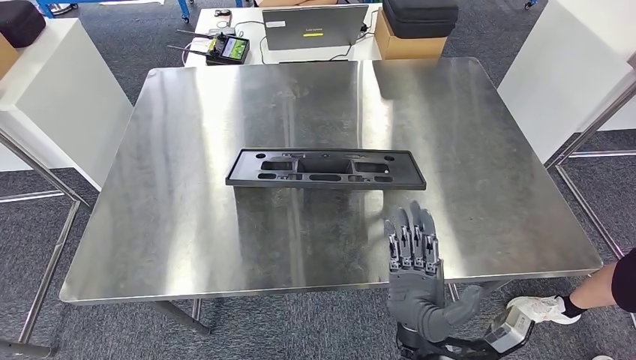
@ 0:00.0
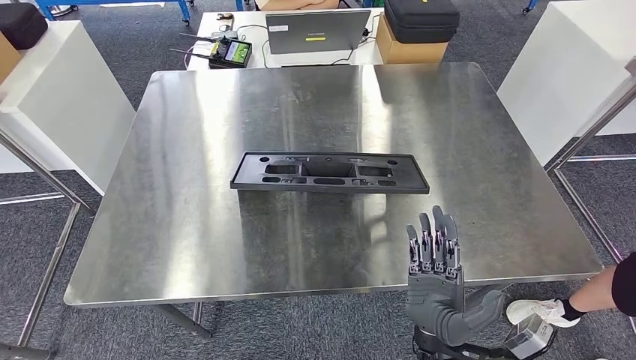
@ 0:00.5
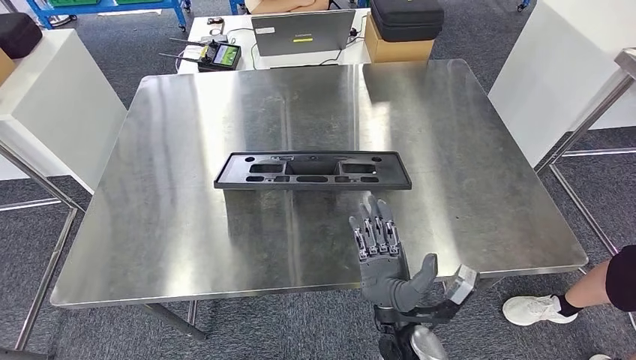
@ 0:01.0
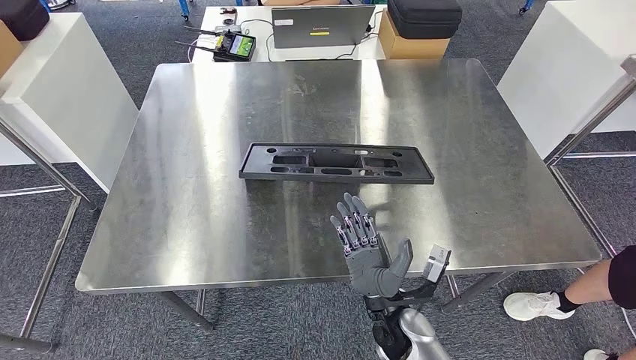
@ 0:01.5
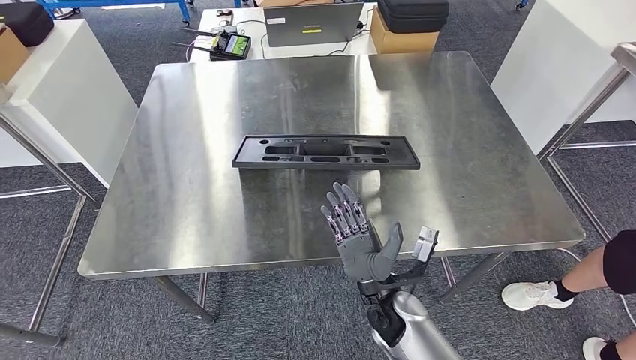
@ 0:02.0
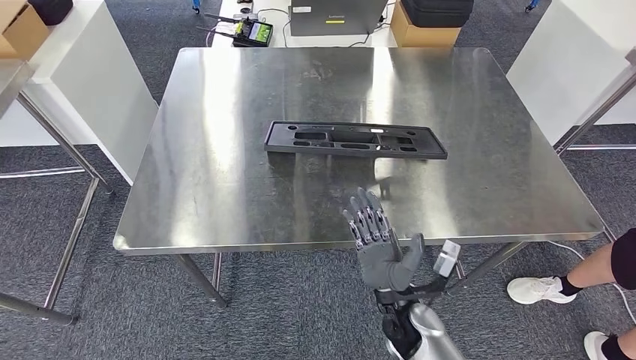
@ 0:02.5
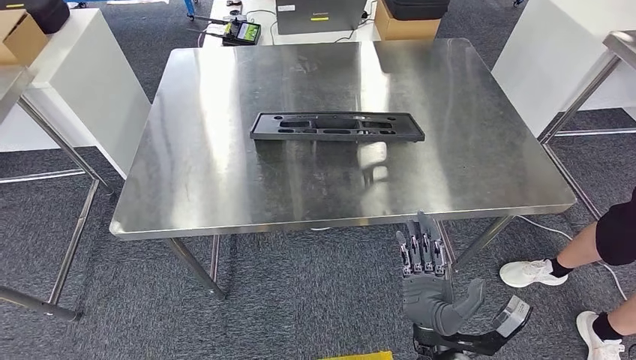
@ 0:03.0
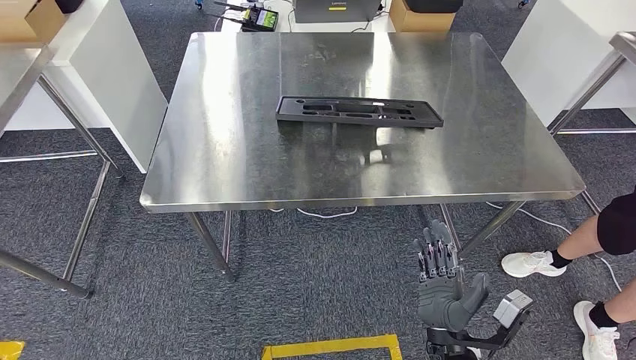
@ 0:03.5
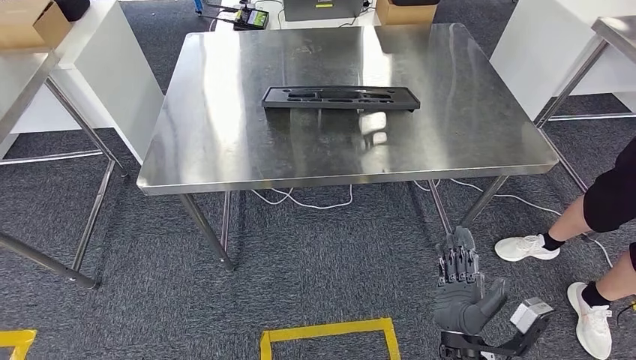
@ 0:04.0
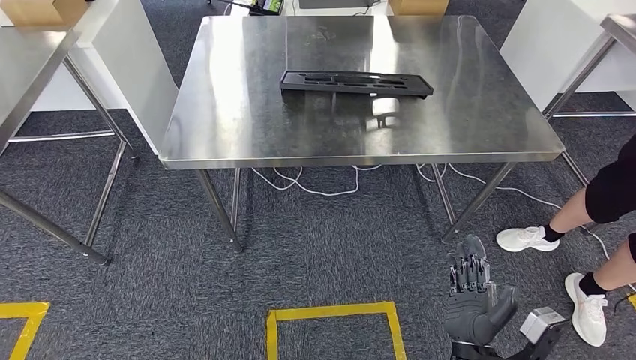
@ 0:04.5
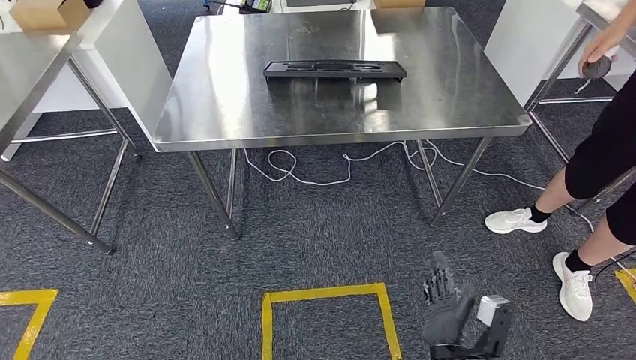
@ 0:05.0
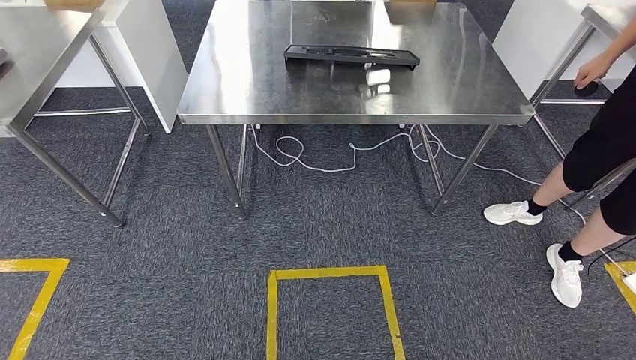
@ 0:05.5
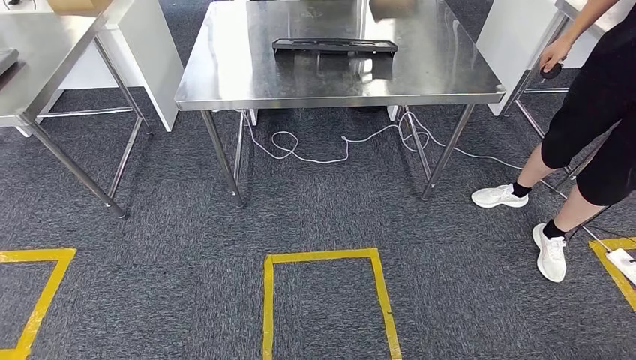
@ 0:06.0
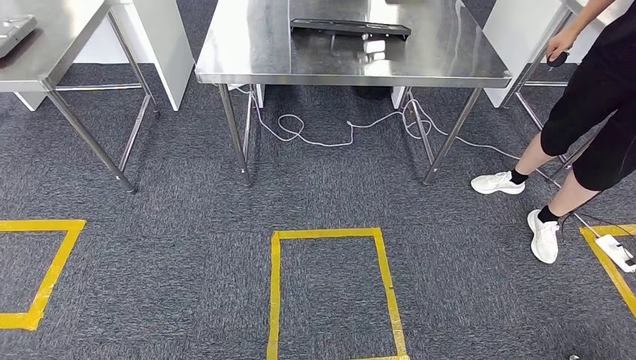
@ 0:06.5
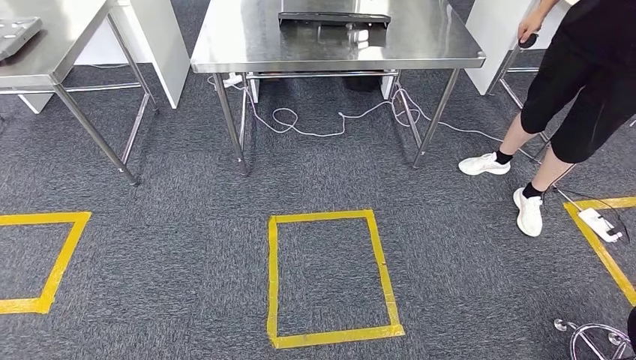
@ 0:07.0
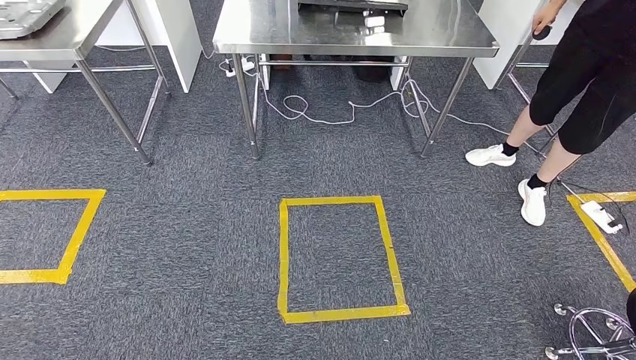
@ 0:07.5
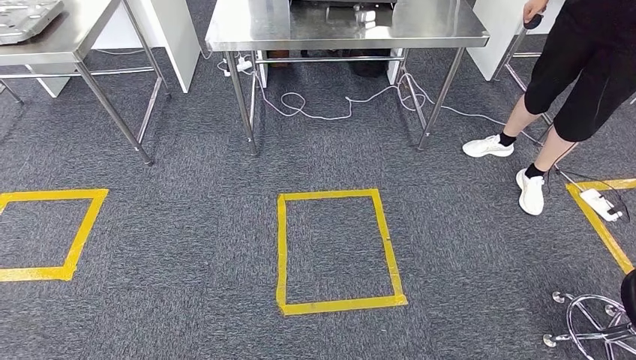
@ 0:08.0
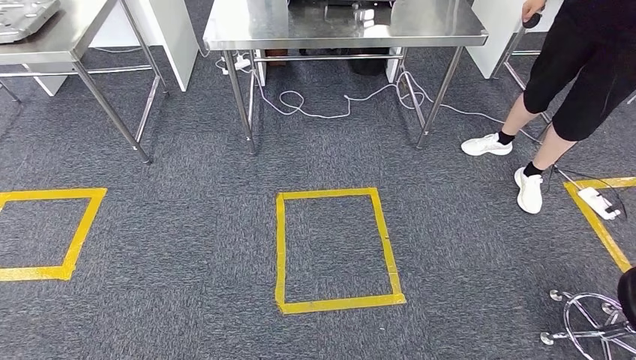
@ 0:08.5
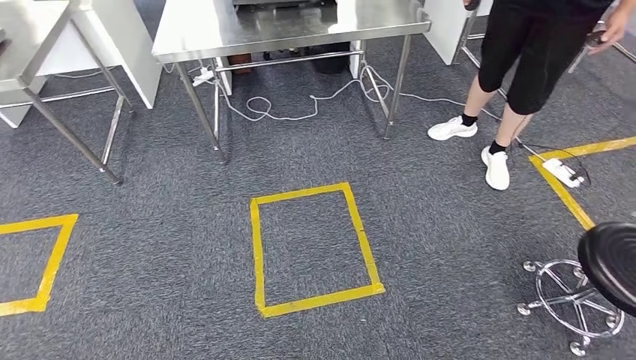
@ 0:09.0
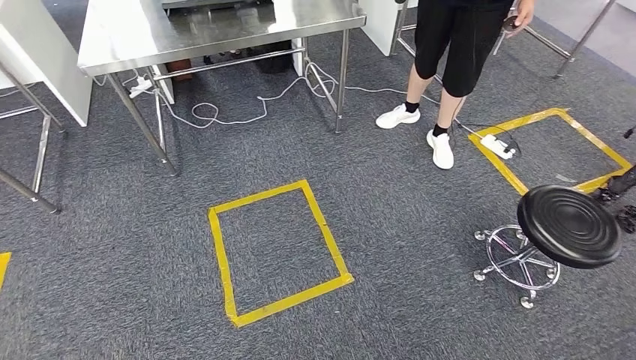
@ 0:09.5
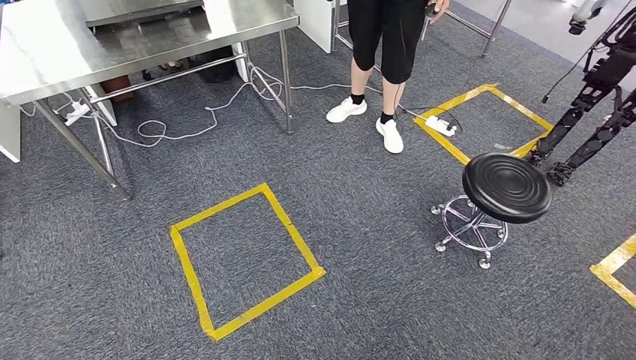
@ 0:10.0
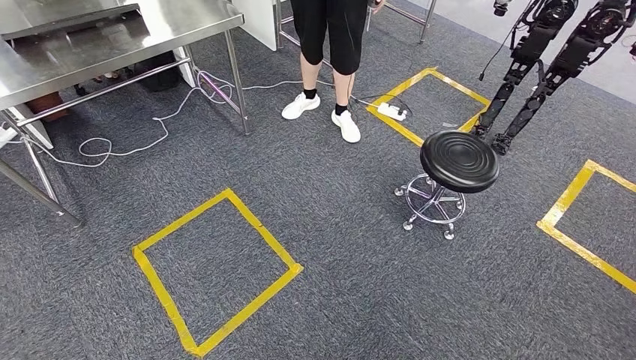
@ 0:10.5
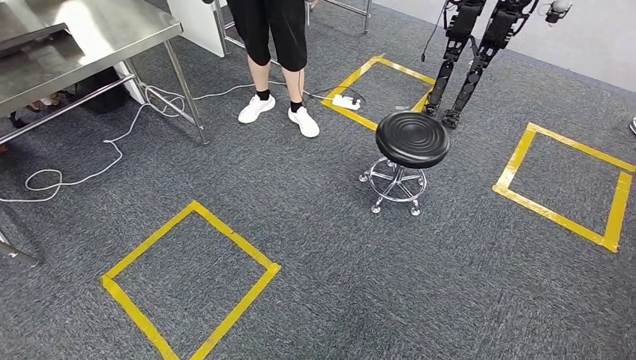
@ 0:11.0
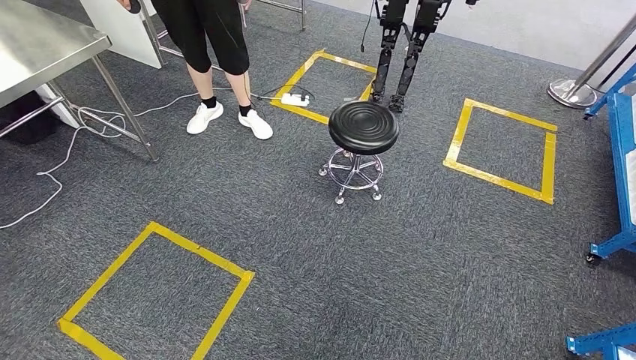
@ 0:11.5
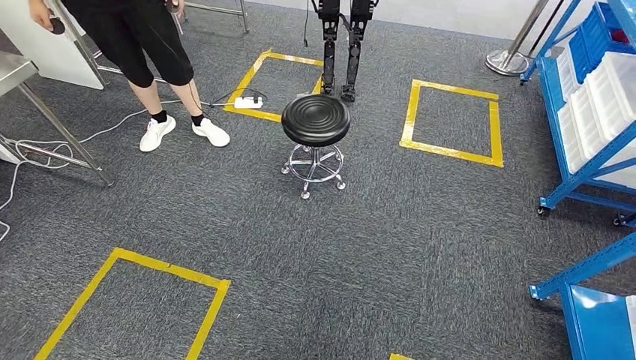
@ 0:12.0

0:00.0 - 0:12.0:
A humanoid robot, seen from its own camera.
Step, 0:00.0 - 0:06.0: Insert the large material into the corresponding hole on the workbench.

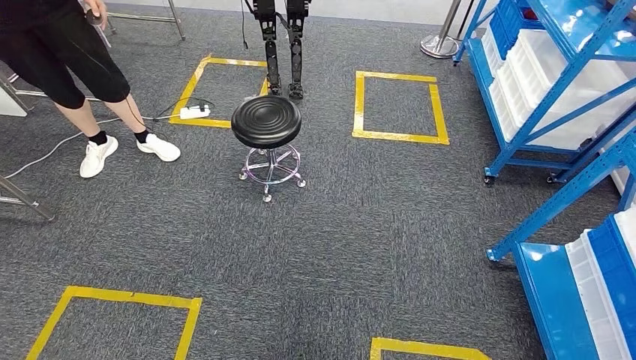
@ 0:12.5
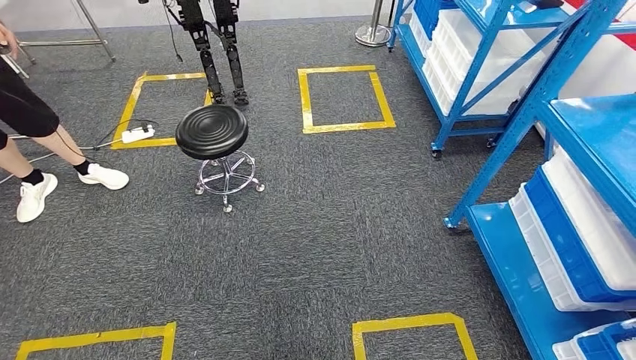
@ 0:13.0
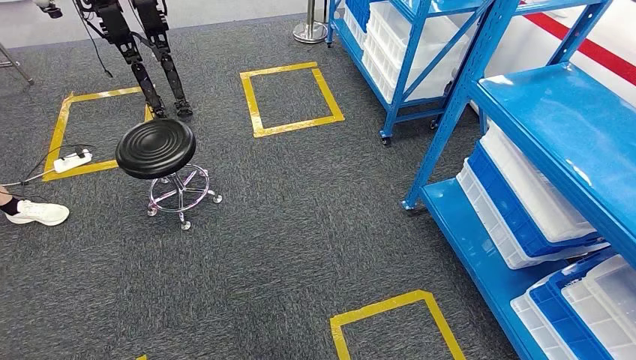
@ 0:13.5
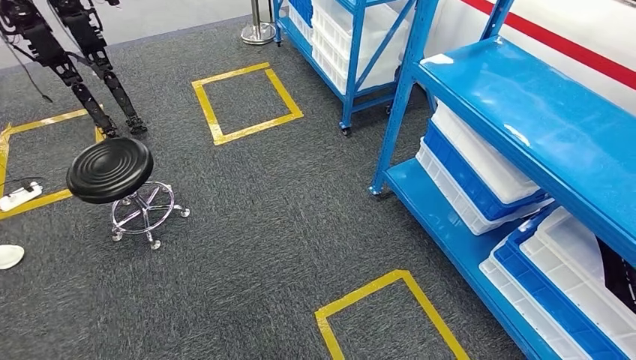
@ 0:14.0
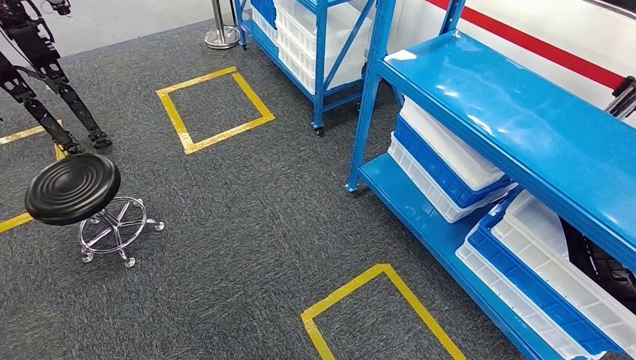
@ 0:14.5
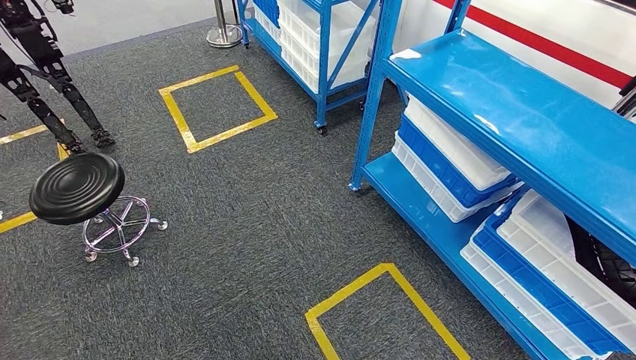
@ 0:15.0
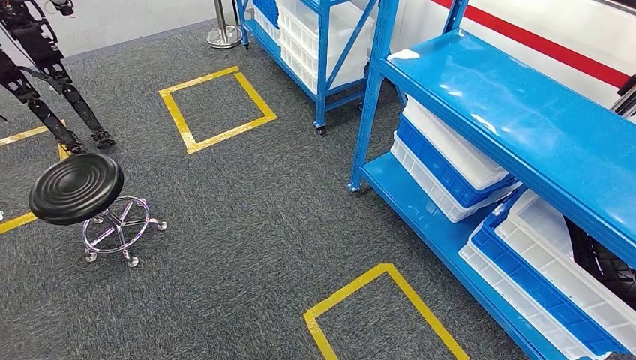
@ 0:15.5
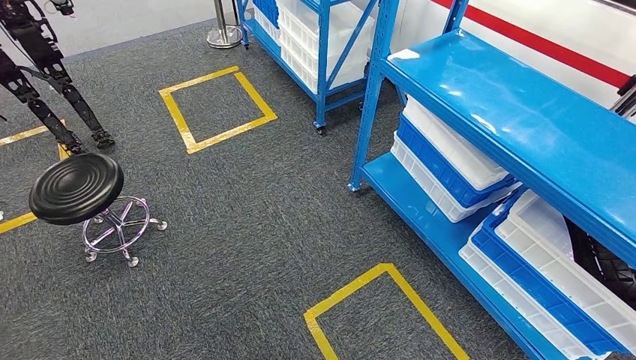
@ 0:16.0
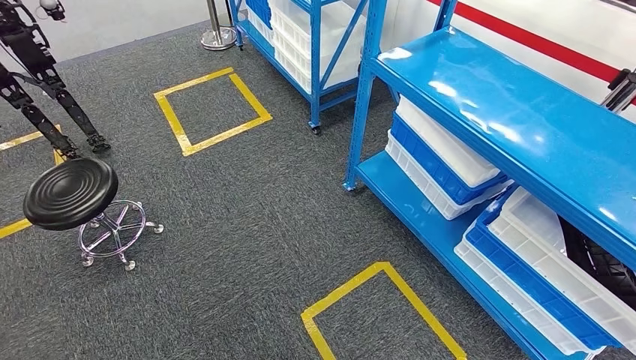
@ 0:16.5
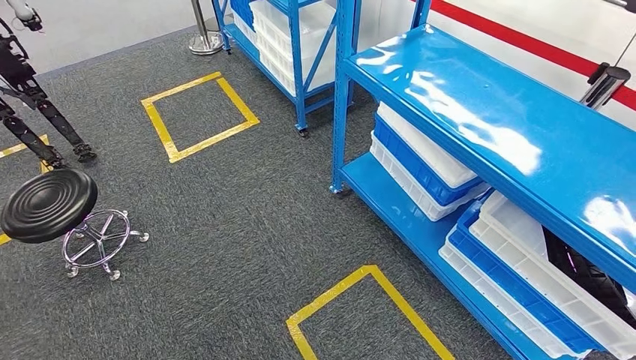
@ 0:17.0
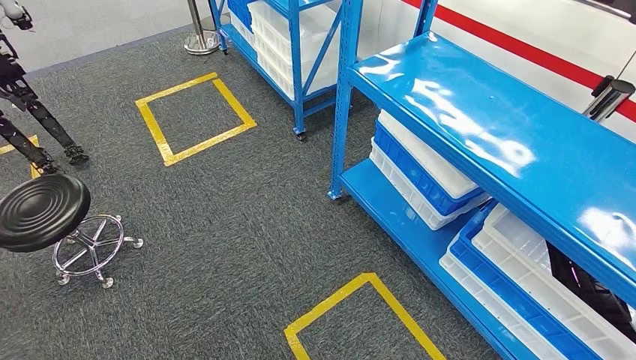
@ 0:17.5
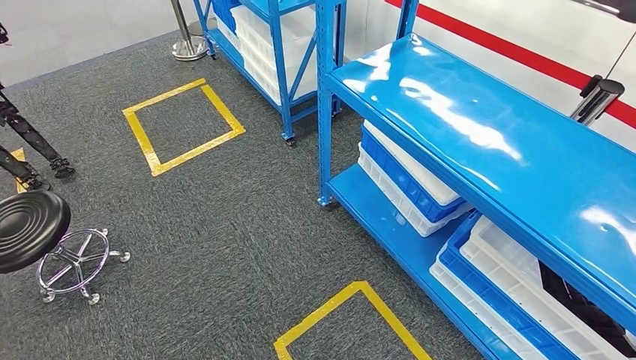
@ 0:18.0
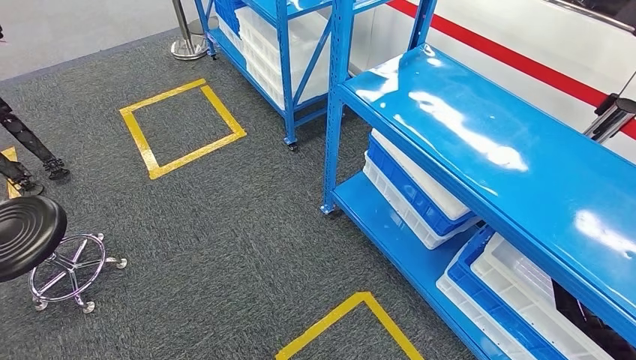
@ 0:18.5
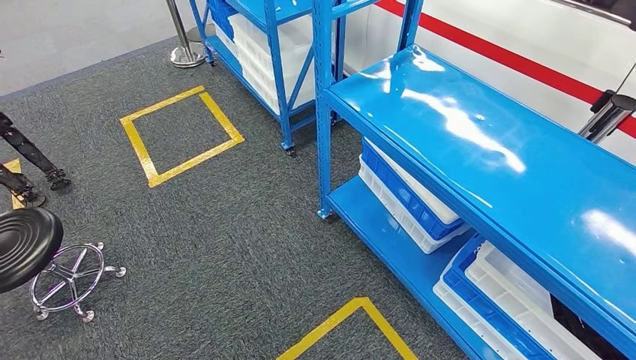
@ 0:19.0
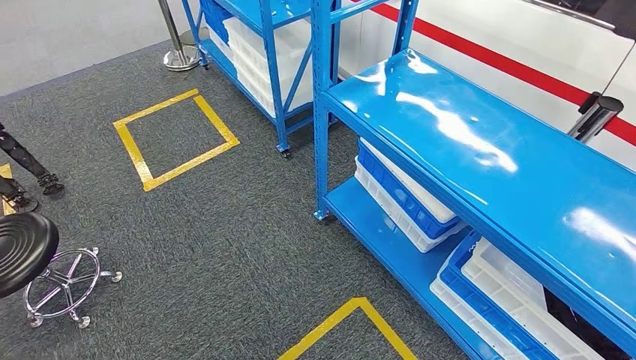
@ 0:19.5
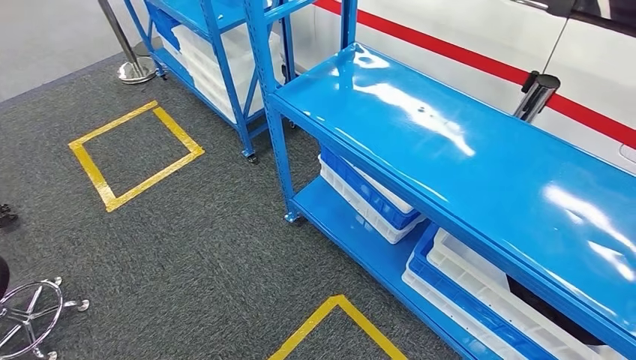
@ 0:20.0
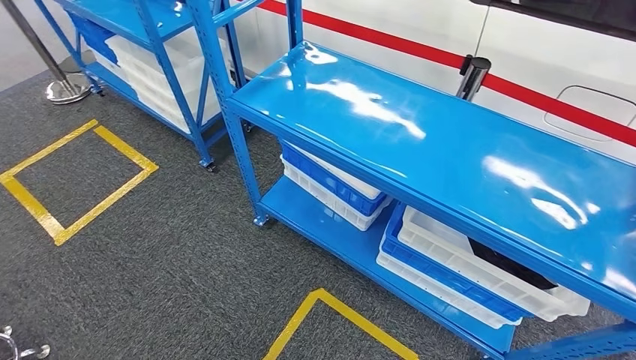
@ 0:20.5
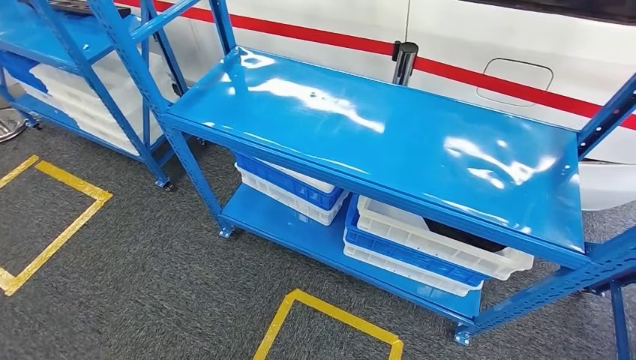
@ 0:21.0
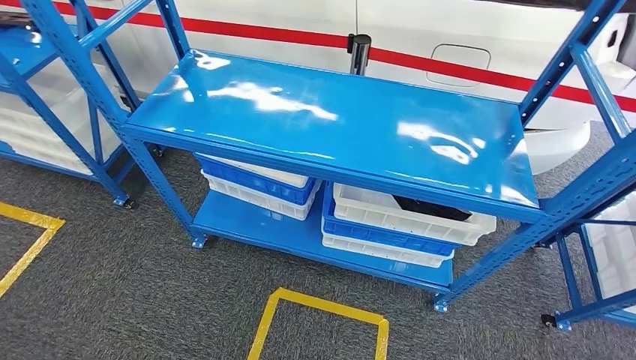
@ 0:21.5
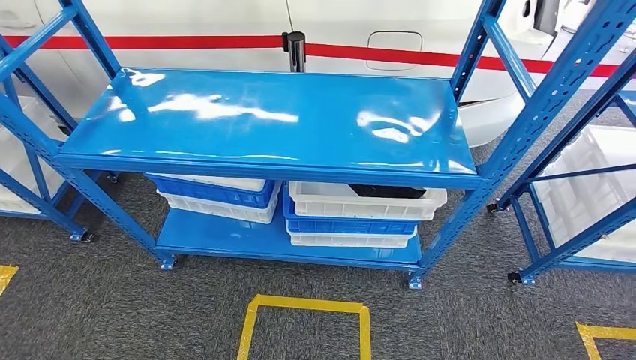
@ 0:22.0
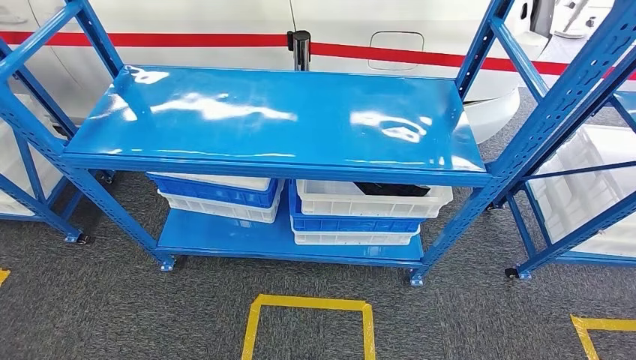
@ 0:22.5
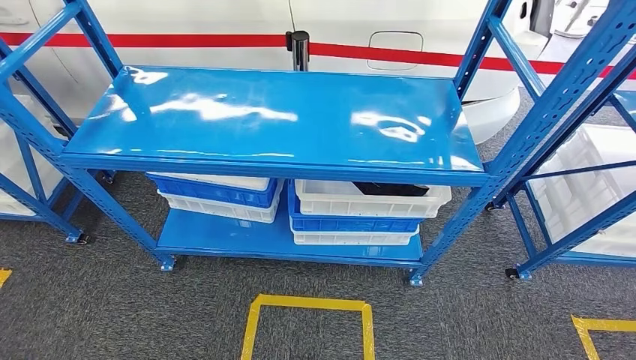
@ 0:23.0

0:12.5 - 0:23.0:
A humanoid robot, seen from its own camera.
Step, 0:12.5 - 0:23.0: Move to the initial position of the shelf.
0:14.5 - 0:16.5: Both hands stay about where they are.
